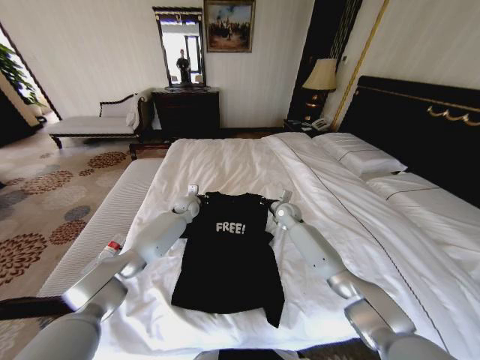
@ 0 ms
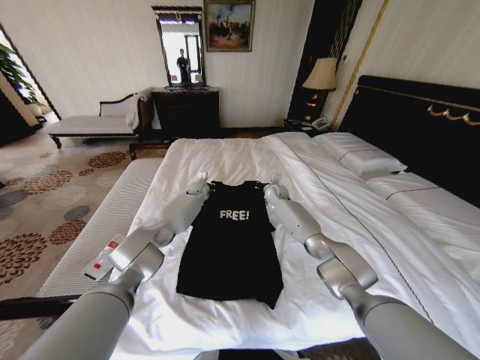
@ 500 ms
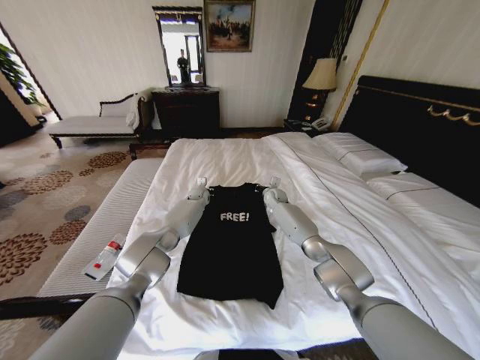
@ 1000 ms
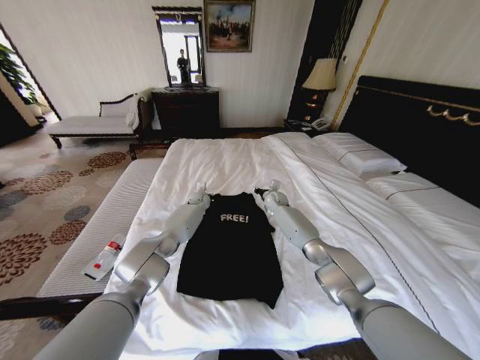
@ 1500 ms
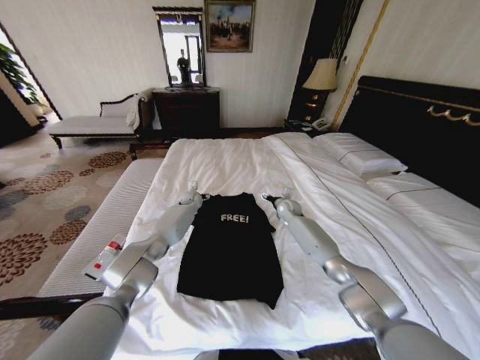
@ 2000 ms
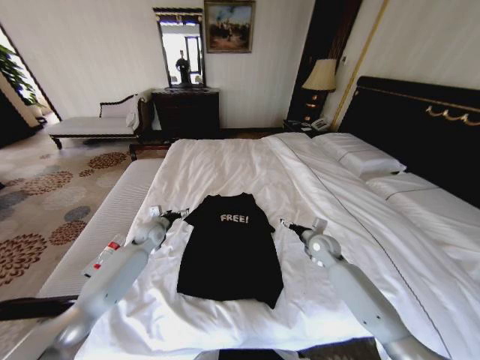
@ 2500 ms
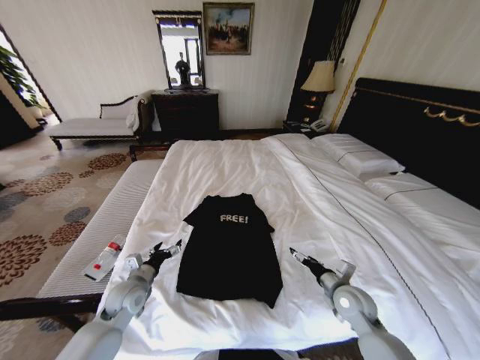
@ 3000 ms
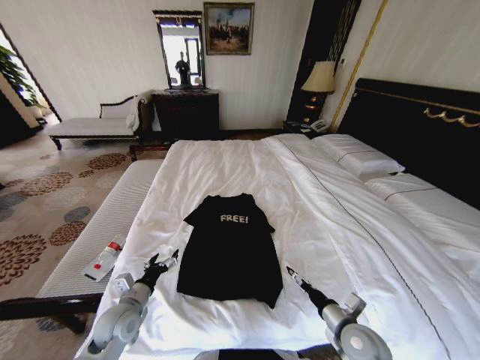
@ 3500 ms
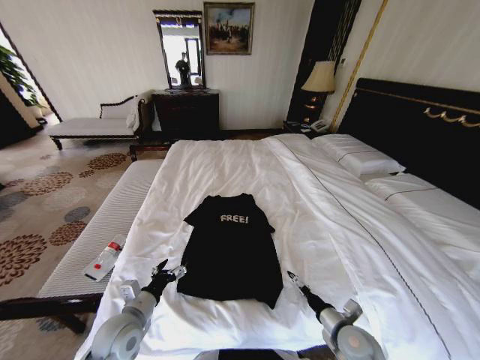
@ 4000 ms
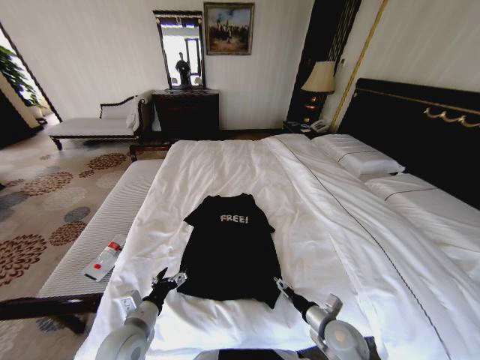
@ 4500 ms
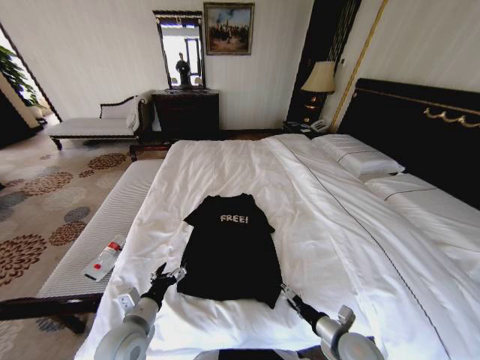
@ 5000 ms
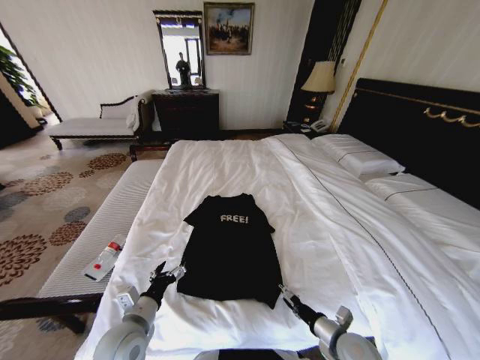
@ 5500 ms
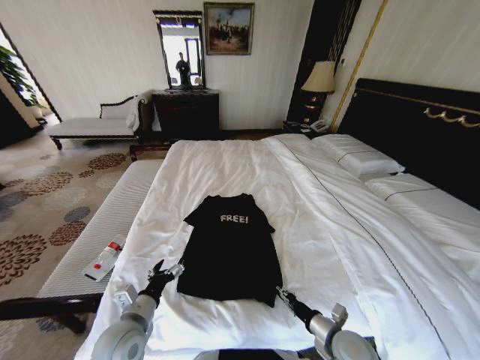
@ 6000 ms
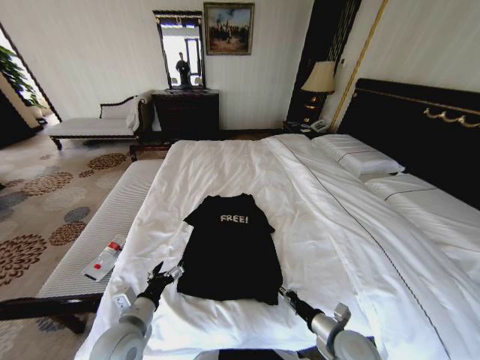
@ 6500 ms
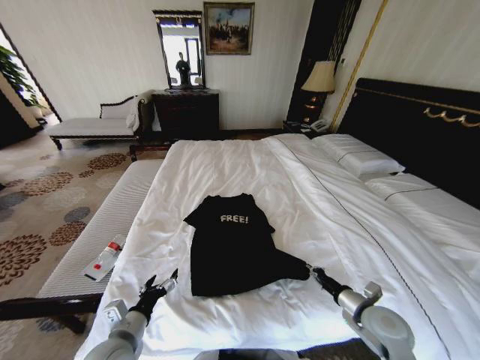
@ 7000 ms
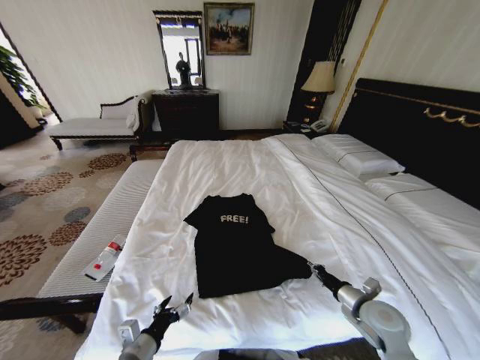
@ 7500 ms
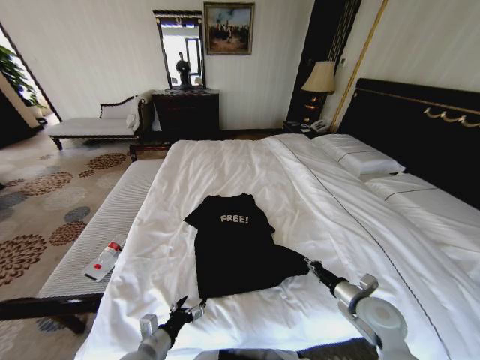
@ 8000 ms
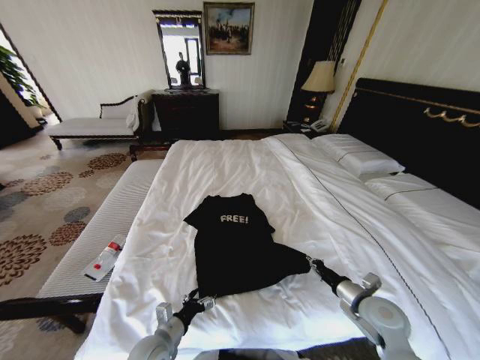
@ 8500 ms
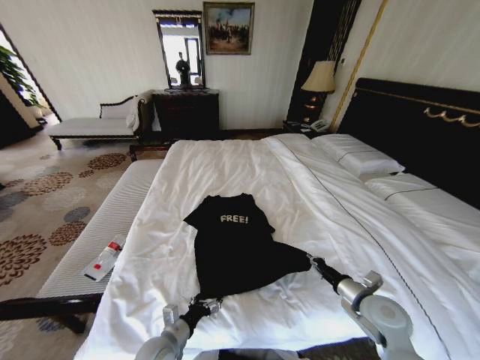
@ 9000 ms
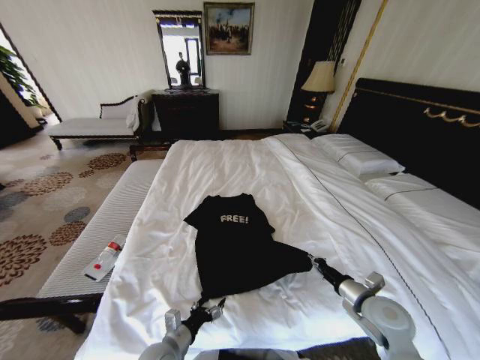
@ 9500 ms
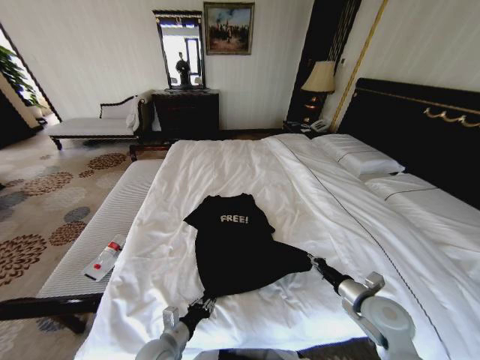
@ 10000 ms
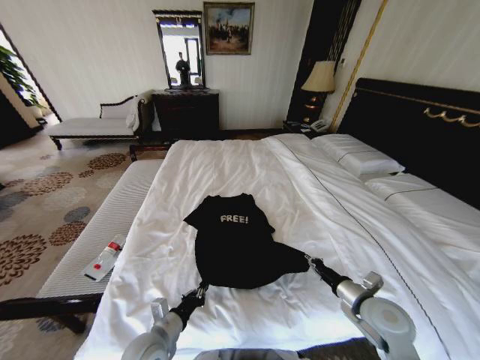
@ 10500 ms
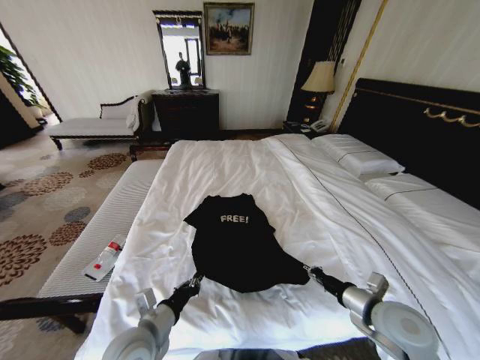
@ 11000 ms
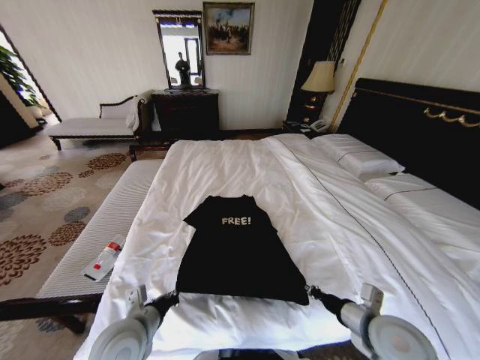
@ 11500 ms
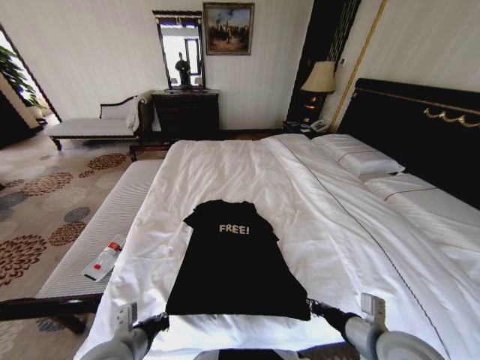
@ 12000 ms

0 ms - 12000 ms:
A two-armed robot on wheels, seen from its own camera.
Task of the whole recording: Fold the clothes on the bed.
0 ms - 2000 ms: The right gripper opens its fingers; the left gripper shifts approximately 5 cm forward, and opens up.
2000 ms - 4000 ms: The two grippers go some 40 cm backward.
4000 ms - 6000 ms: The right gripper closes up.
6000 ms - 8000 ms: The right gripper is displaced to the right, forward and upward by approximately 10 cm, and closes; the left gripper travels downward and backward by roughly 10 cm.
8000 ms - 10000 ms: The left gripper moves some 5 cm, and closes.
10000 ms - 12000 ms: The right gripper goes roughly 15 cm backward, upward and to the left; the left gripper goes some 15 cm upward, and closes its fingers.

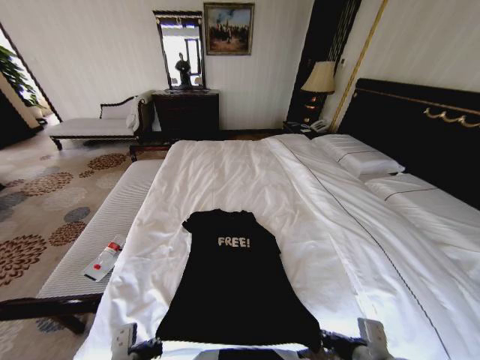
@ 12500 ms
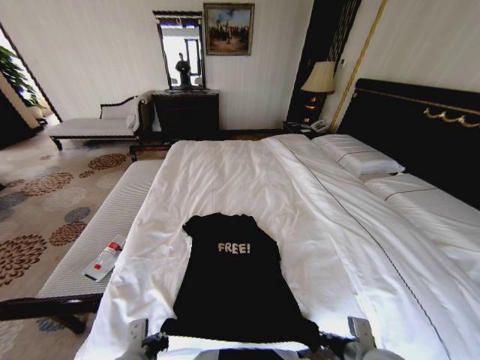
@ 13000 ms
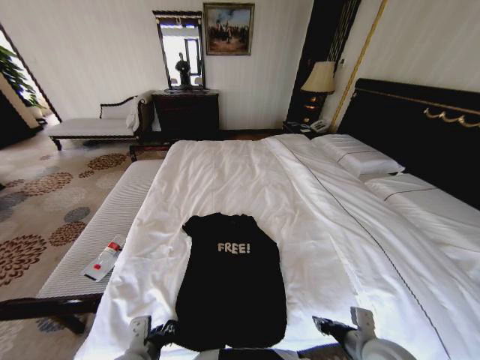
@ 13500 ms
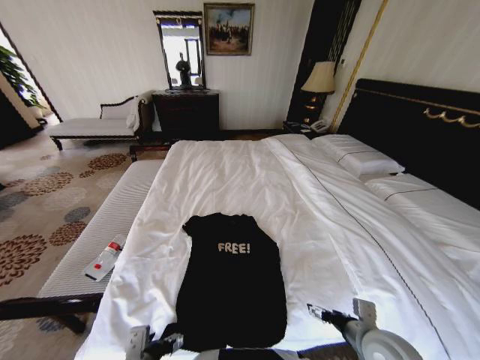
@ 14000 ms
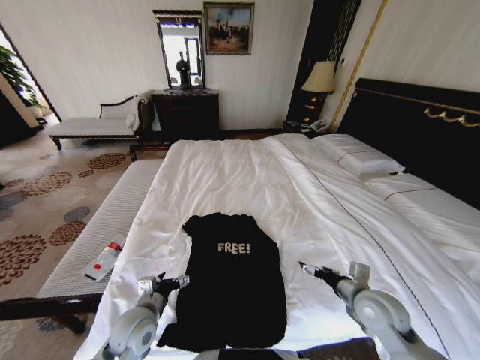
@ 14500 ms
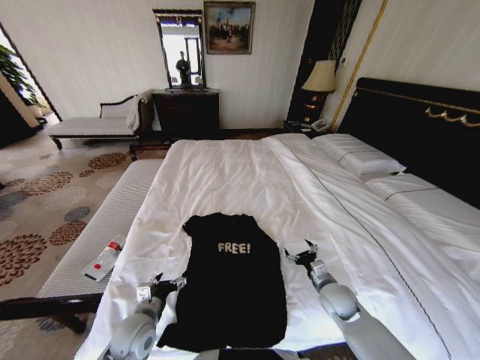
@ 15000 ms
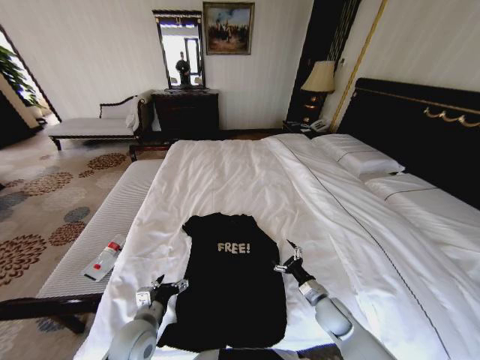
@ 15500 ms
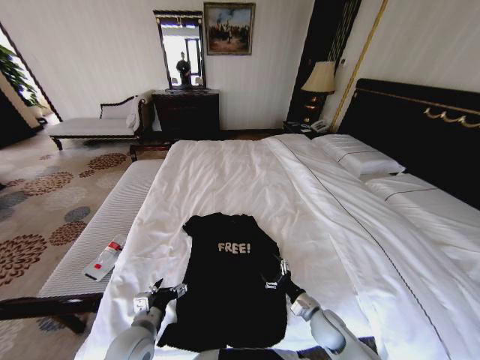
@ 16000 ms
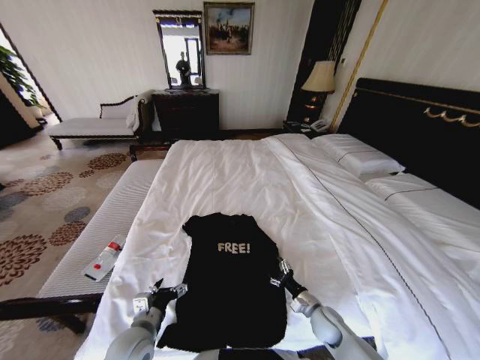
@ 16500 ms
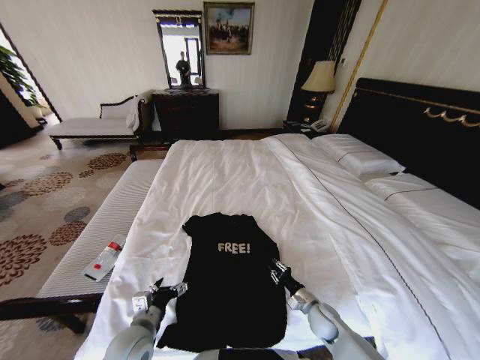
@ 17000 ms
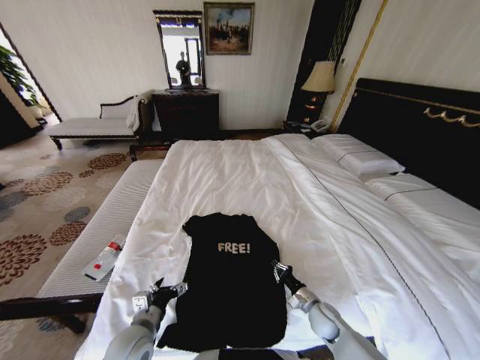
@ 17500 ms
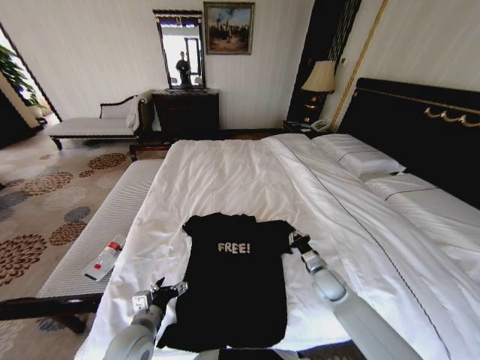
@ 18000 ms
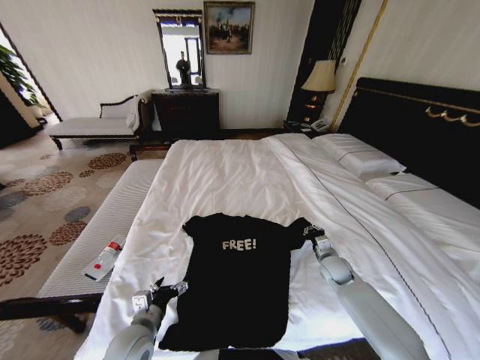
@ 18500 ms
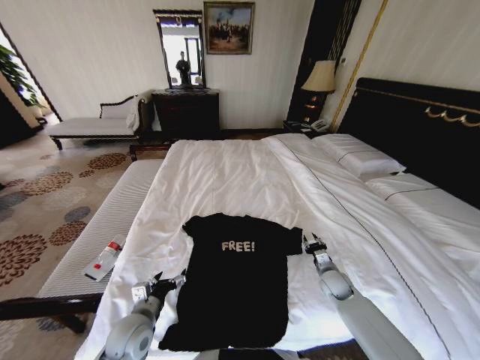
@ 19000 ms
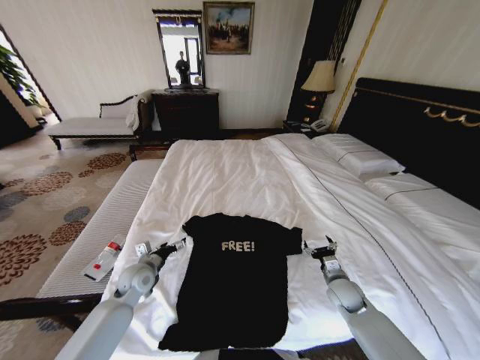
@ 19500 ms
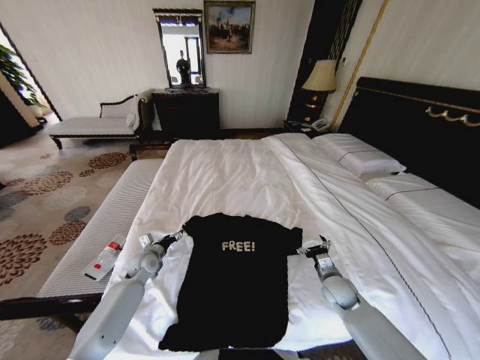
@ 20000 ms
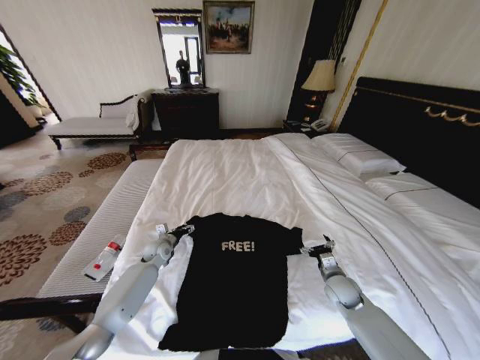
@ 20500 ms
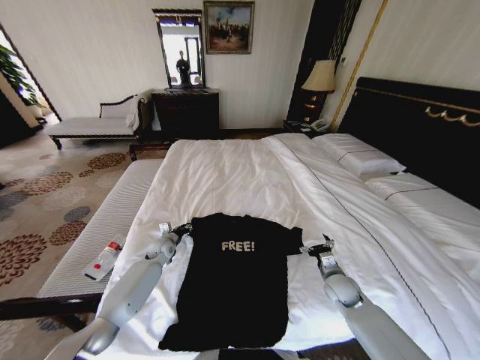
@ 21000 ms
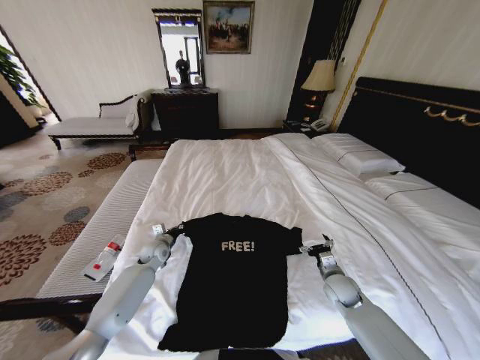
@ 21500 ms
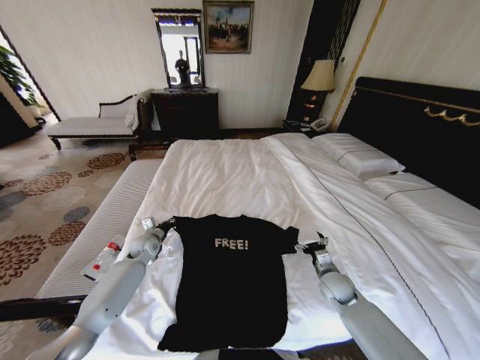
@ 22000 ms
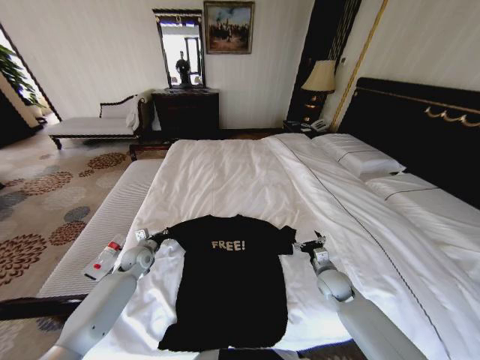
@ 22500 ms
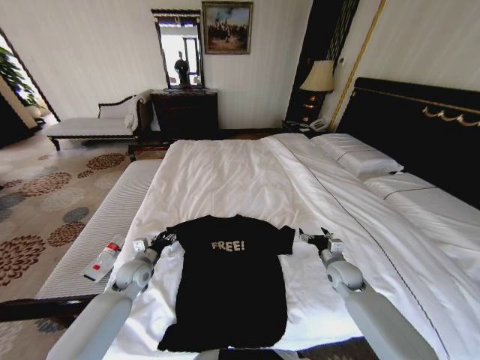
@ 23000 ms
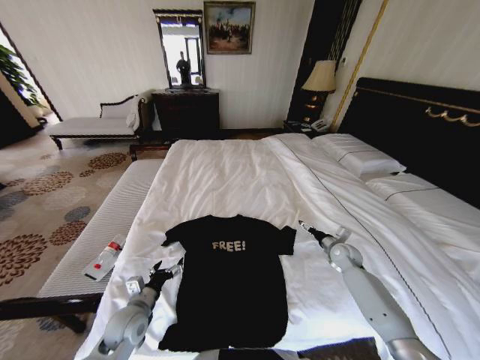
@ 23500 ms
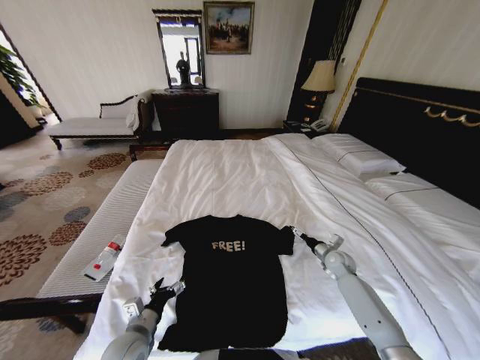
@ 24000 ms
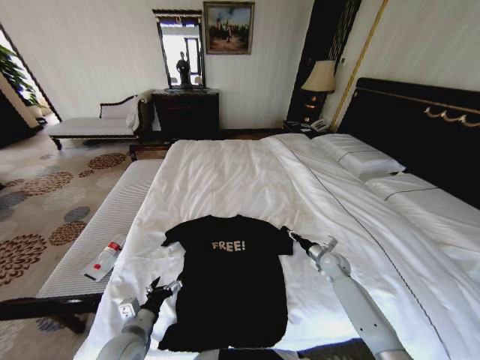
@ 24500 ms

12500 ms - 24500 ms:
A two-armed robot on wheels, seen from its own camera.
Task of the whole recording: Fold the clothes on the bed.
12500 ms - 14500 ms: The right gripper goes some 10 cm forward, and opens. Meanwhile the left gripper heads forward and downward, covering some 10 cm, and opens its fingers.
14500 ms - 16500 ms: The right gripper heads downward, covering about 20 cm.
16500 ms - 18500 ms: The right gripper goes approximately 15 cm forward, upward and to the right, and closes up.
18500 ms - 20500 ms: The right gripper shifts some 5 cm backward, and opens. Meanwhile the left gripper heads forward, covering about 30 cm.
20500 ms - 22500 ms: The left gripper goes roughly 5 cm to the left, and closes.
22500 ms - 24500 ms: The left gripper is displaced backward by about 25 cm, and opens its fingers; the right gripper shifts roughly 10 cm forward and to the right, and closes its fingers.

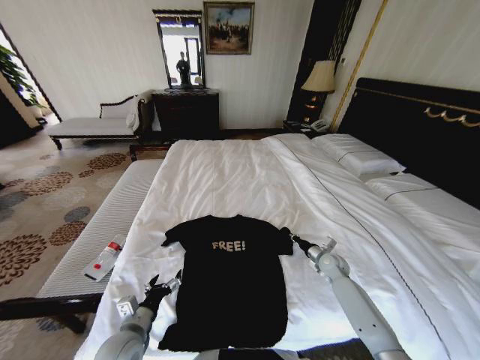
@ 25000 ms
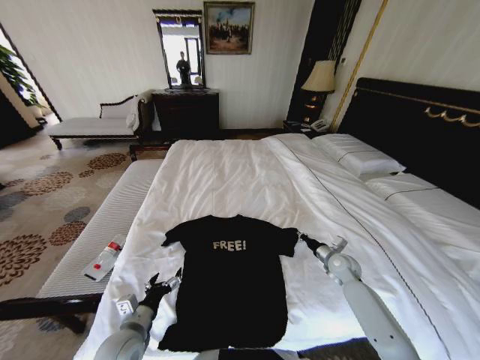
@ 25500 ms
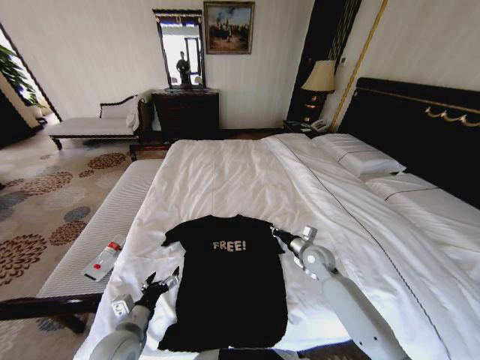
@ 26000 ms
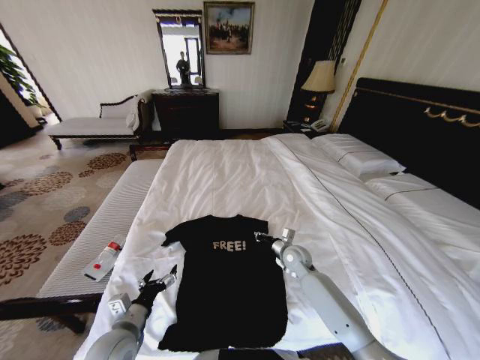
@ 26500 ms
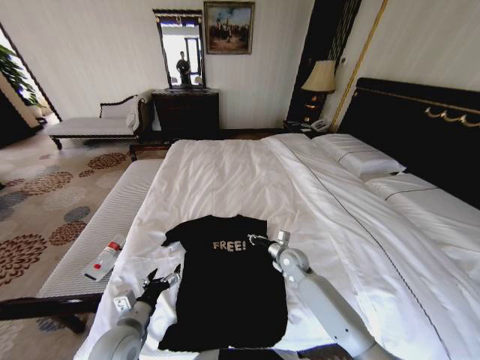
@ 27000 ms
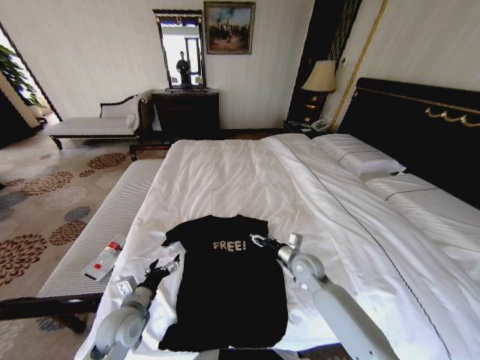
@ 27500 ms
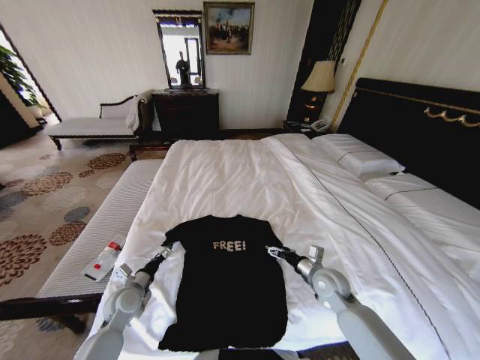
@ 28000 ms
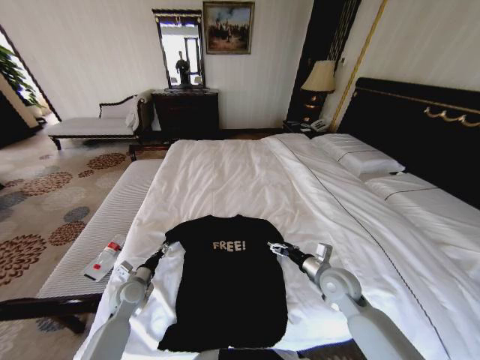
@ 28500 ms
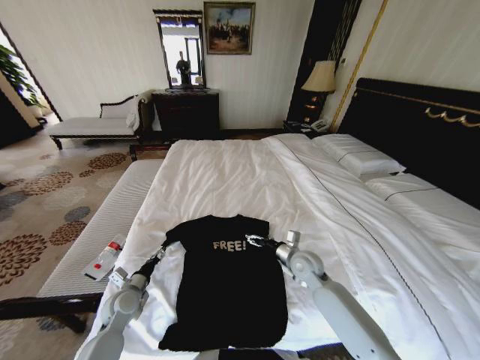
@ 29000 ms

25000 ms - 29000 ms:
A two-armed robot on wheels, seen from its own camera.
Task of the whole recording: Fold the clothes on the bed.
25000 ms - 27000 ms: The right gripper travels to the left by roughly 15 cm.
27000 ms - 29000 ms: The right gripper opens up, while the left gripper is displaced forward, to the left and downward by approximately 15 cm, and closes up.
